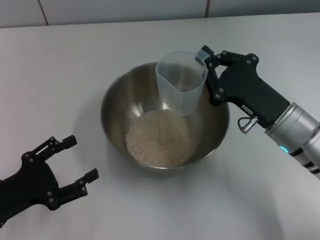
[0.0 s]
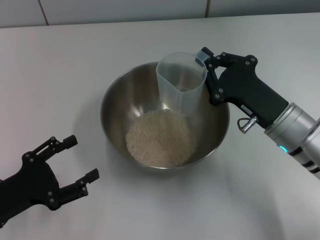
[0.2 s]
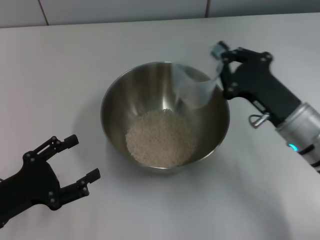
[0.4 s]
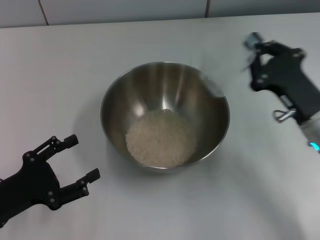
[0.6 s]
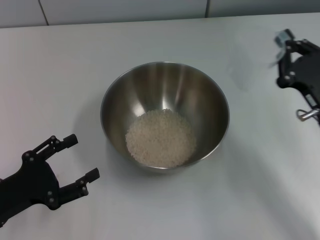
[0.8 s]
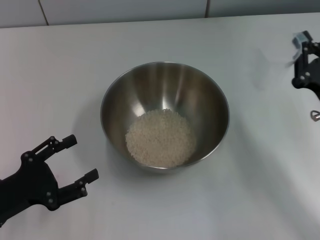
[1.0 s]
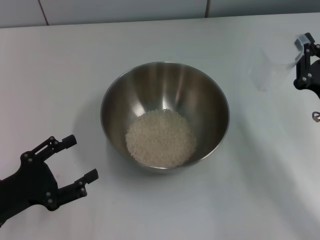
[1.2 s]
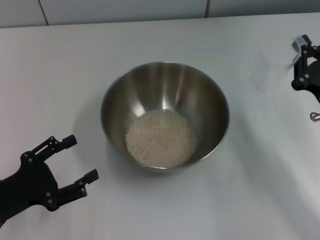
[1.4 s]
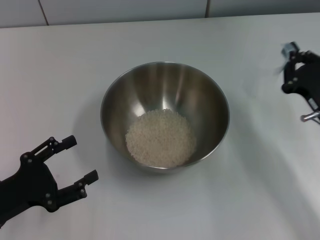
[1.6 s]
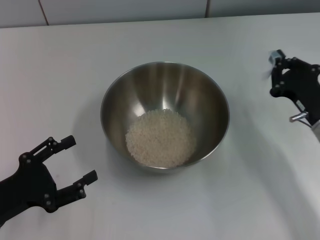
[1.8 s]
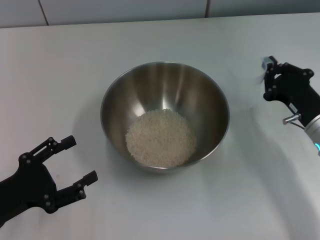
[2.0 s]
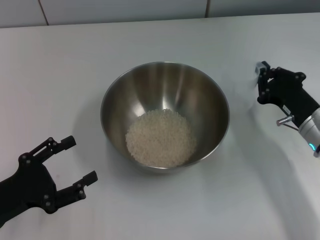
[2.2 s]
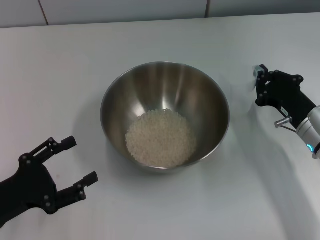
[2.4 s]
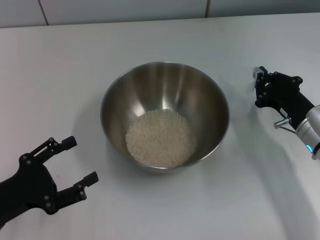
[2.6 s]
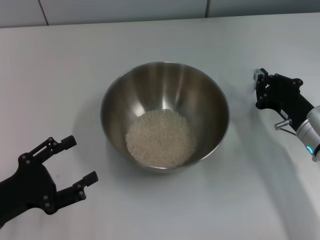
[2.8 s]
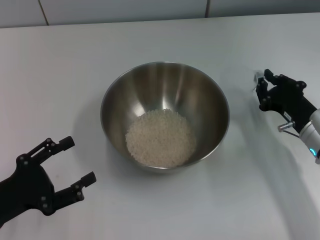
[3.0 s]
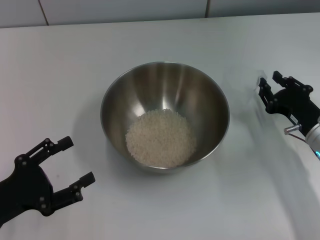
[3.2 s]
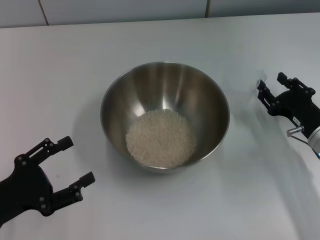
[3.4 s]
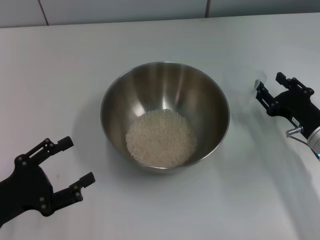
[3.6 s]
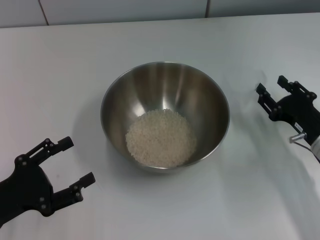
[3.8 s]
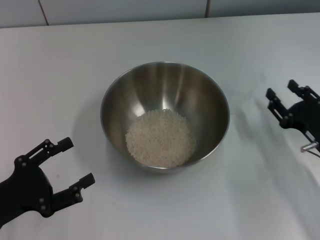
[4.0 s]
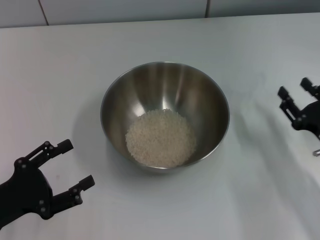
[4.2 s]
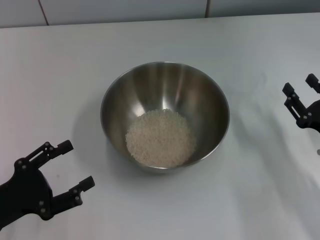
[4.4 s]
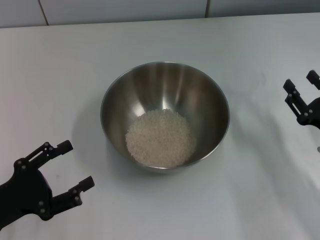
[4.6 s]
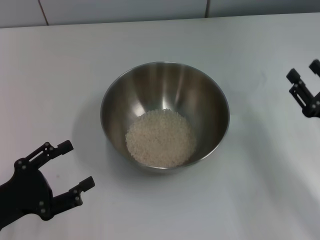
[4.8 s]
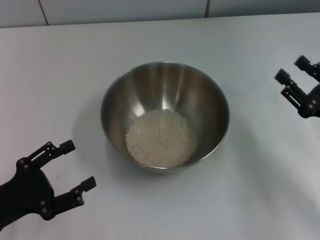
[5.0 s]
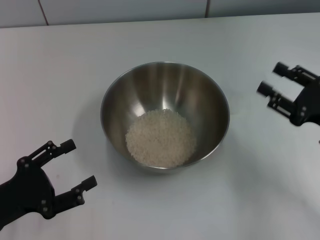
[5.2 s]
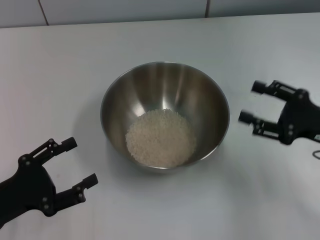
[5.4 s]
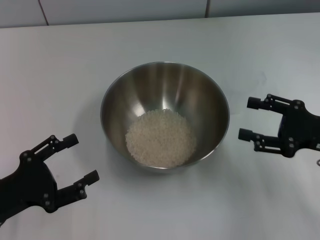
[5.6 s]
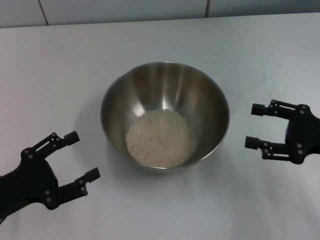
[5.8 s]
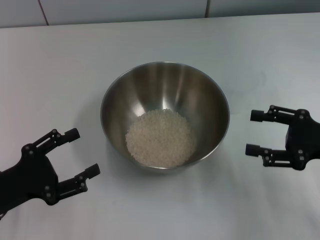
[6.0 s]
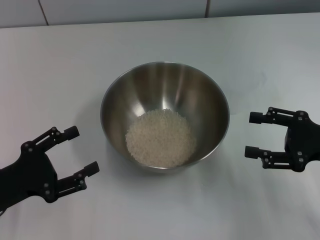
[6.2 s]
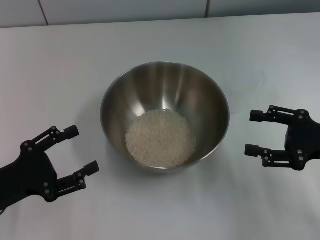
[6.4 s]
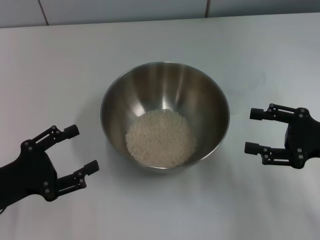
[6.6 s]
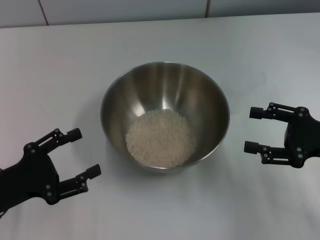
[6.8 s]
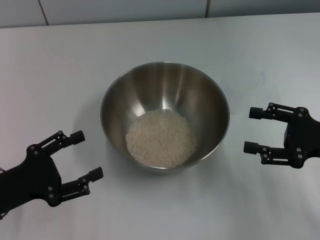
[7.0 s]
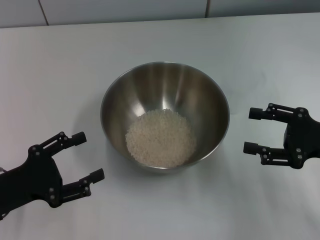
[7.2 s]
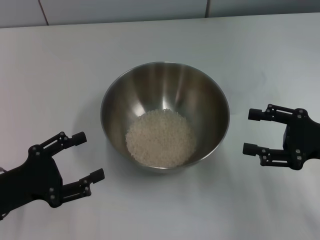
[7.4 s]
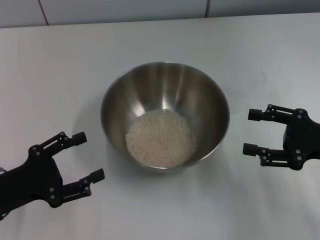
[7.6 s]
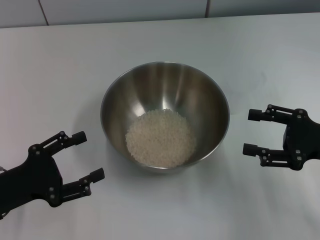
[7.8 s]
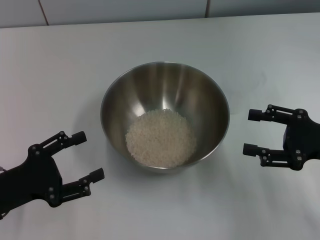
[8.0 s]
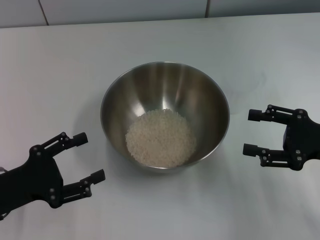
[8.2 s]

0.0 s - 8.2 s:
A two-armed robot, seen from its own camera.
Task of the whole recording: Place the bowl in the middle of the table with one hand and pour the rice from the grain cup into it with the other hand.
Step, 0.0 s - 3.8 s: Place the cup on the table with the right gripper.
0.0 s - 1.6 s: The right gripper moves to the right, approximately 10 cm.
1.6 s - 3.2 s: There are only small adjustments of the grippers.
3.2 s - 5.0 s: The right gripper changes place by approximately 5 cm, and opens up.
6.6 s - 8.2 s: Both grippers stay put.

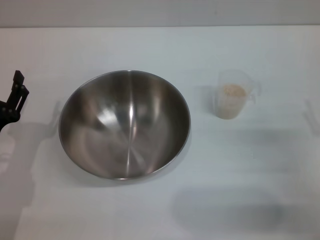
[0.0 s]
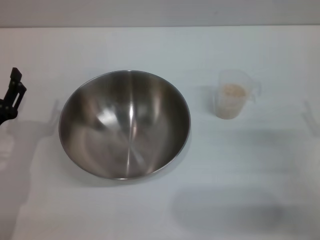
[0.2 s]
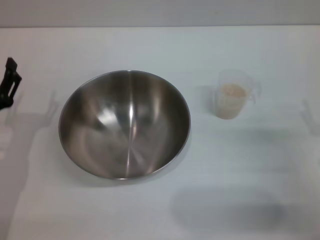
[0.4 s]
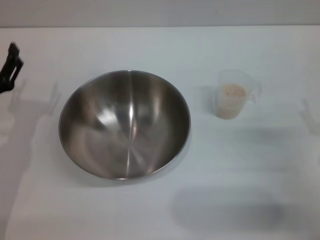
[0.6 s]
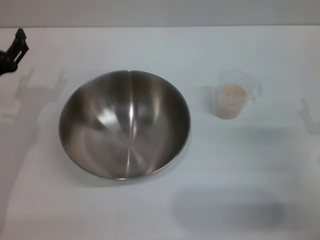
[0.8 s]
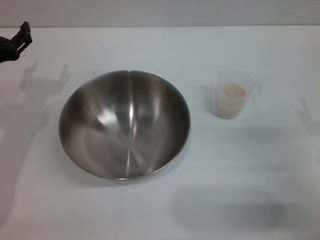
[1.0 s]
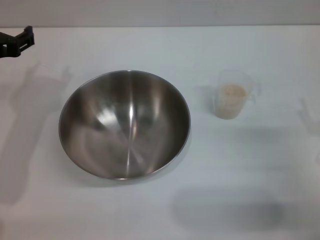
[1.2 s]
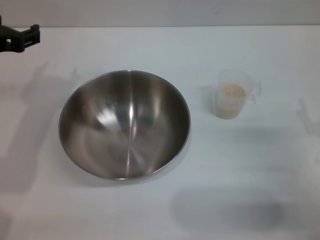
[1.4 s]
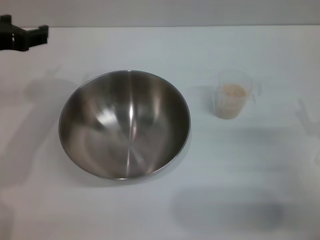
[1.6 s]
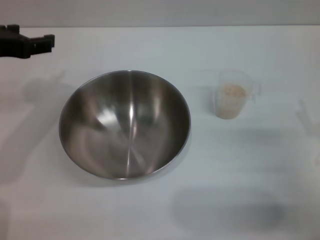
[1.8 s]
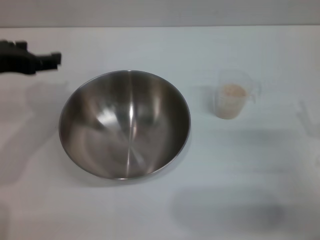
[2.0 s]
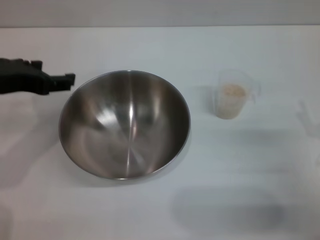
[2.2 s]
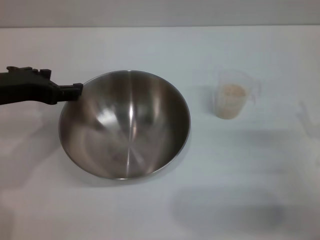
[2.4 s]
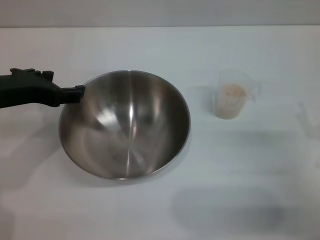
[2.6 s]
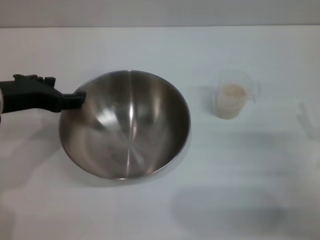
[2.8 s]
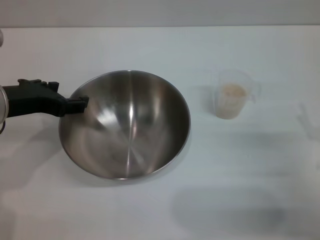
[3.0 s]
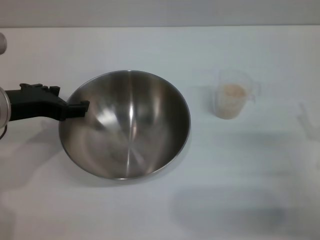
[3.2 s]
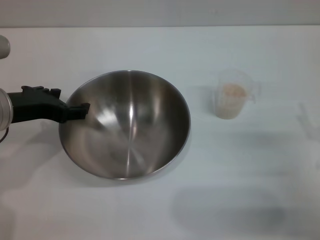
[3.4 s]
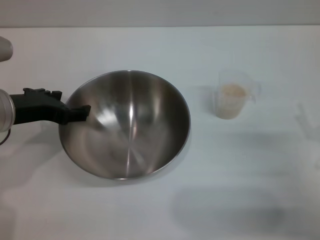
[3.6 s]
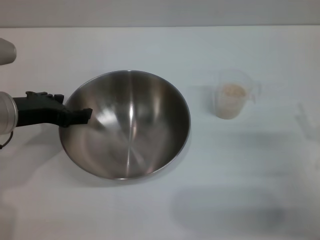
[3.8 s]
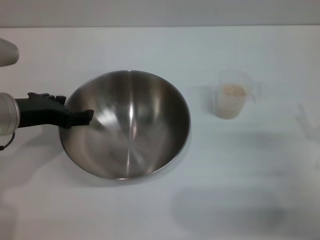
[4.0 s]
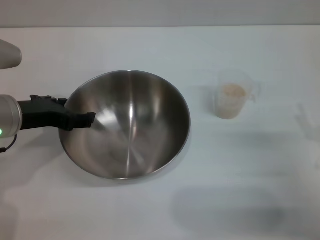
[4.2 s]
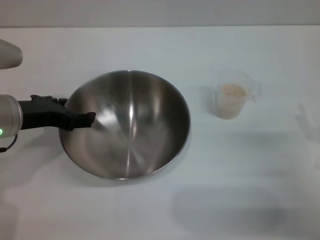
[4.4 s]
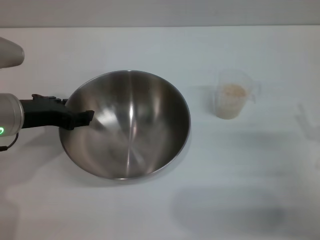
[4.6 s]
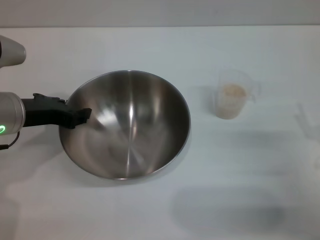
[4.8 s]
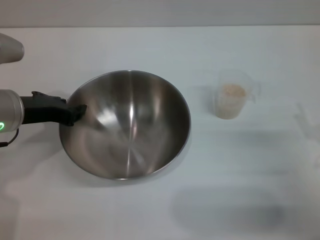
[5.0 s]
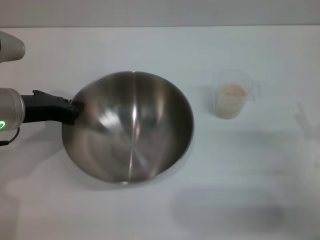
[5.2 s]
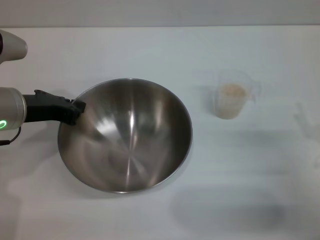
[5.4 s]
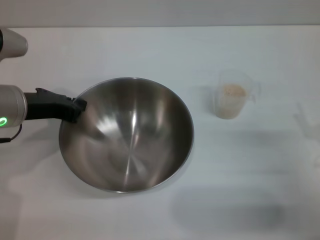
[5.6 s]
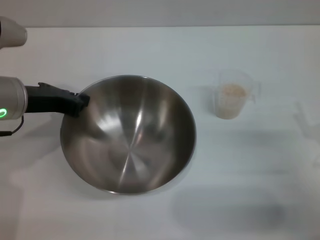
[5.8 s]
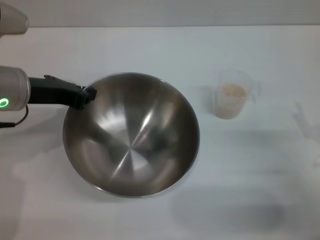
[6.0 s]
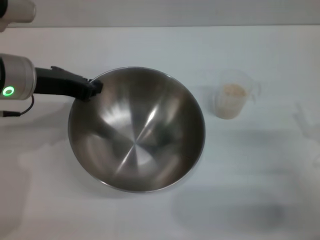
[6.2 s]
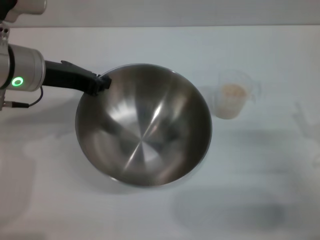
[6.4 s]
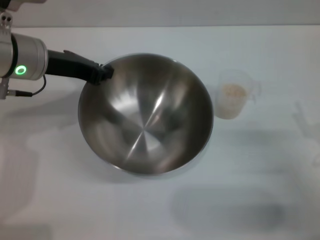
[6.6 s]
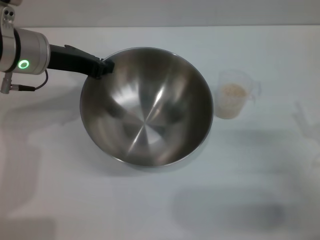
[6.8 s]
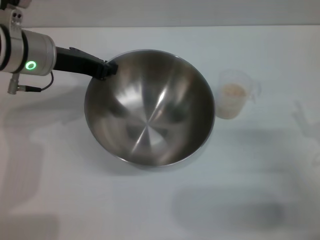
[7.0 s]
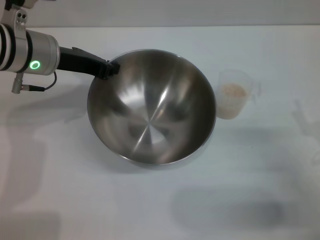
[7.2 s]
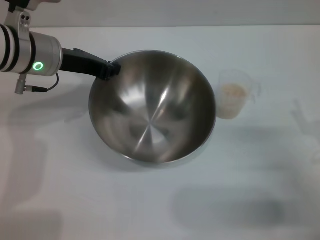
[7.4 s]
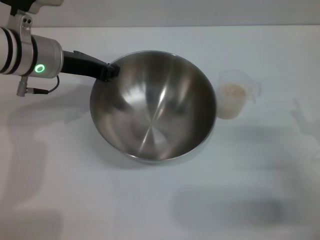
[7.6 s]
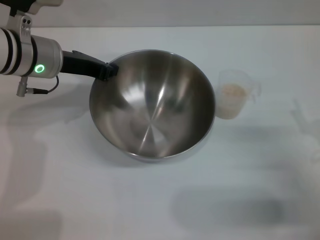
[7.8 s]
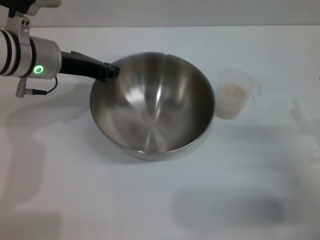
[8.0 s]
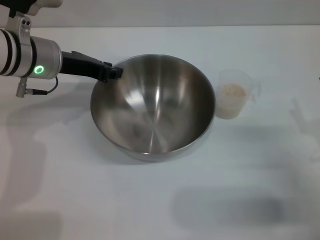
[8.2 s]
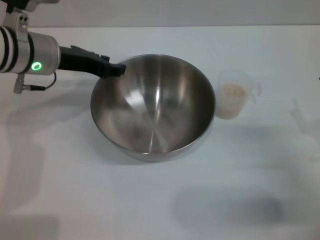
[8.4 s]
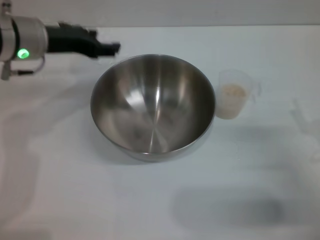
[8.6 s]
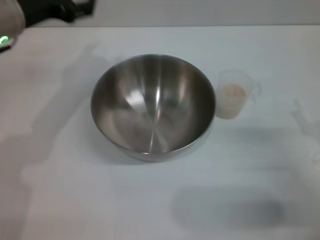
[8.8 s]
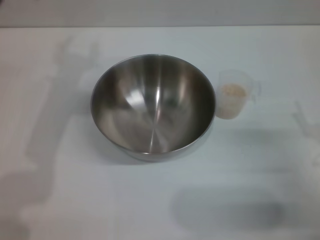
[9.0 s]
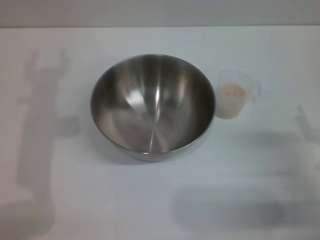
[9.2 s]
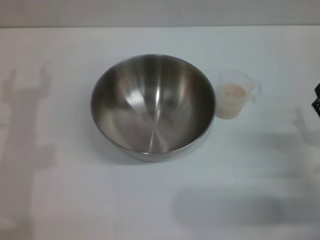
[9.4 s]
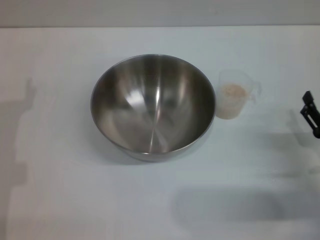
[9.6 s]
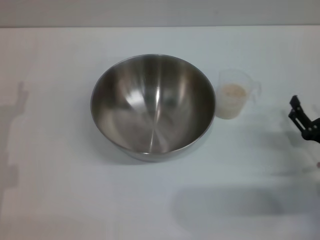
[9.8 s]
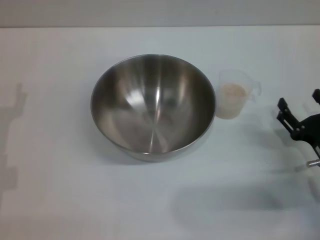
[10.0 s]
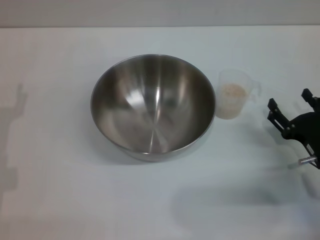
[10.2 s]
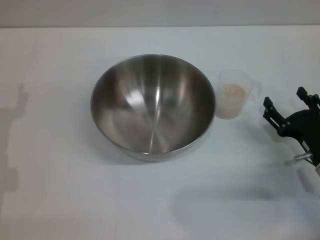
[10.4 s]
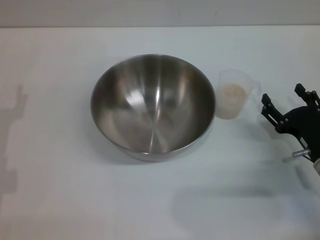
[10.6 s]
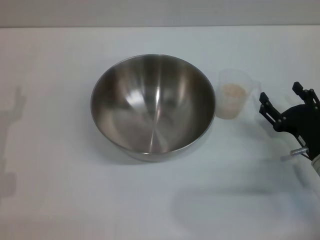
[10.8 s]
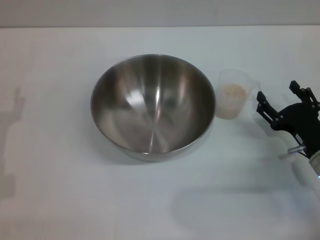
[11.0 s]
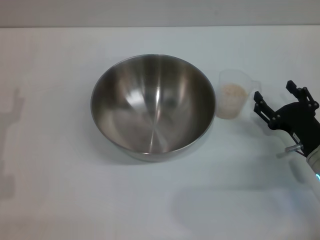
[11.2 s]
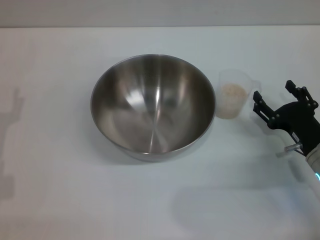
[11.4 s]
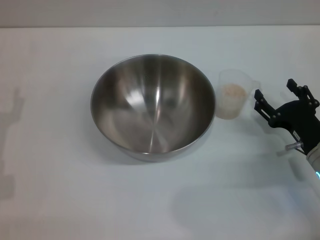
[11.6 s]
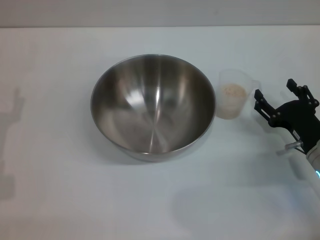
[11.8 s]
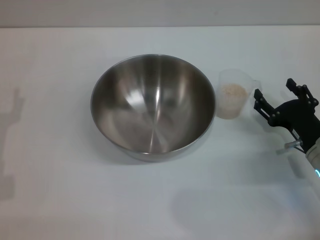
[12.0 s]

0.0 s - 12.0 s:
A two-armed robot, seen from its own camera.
Task of the whole recording: Place the bowl in the middle of the table with one hand and pour the rice from the grain cup into it with the other hand.
Step, 0.0 s - 6.8 s: Pick up the bowl with the left gripper.
Step, 7.2 s - 8.6 s: Place the bowl in the center of view with the left gripper.
0.0 s - 1.6 s: The left gripper moves upward and forward, approximately 20 cm.
1.6 s - 3.0 s: The left gripper changes place by approximately 5 cm.
3.0 s - 4.4 s: The grippers make only small movements.
4.4 s - 6.0 s: The left gripper closes its fingers.
6.0 s - 7.6 s: The left gripper moves forward, approximately 5 cm.
7.6 s - 9.0 s: The left gripper shifts about 10 cm backward and upward, and opens.
9.0 s - 10.4 s: The right gripper moves approximately 5 cm.
10.4 s - 12.0 s: There are only small adjustments of the grippers.

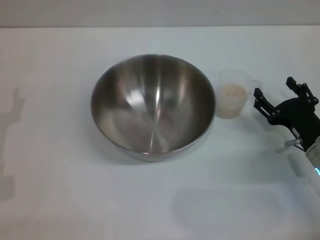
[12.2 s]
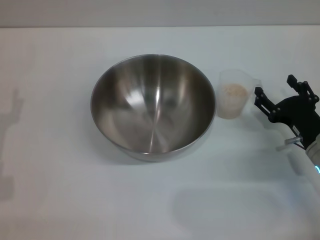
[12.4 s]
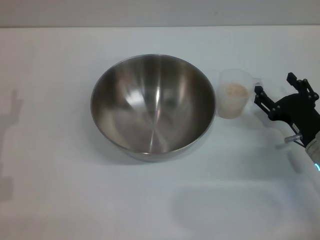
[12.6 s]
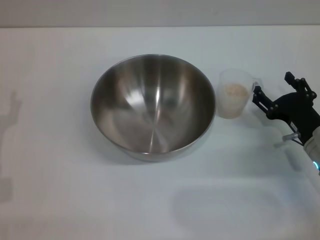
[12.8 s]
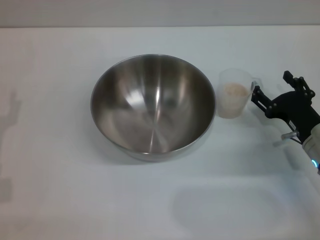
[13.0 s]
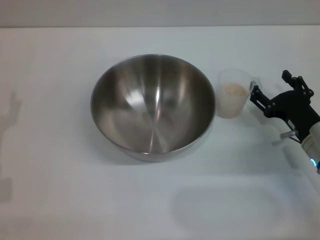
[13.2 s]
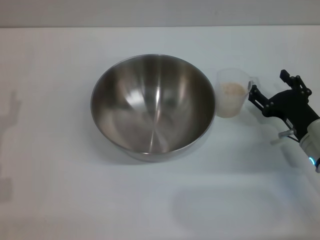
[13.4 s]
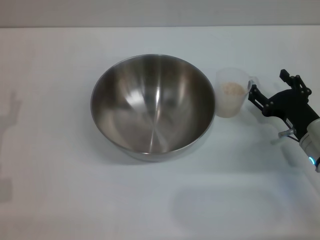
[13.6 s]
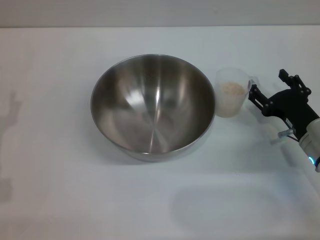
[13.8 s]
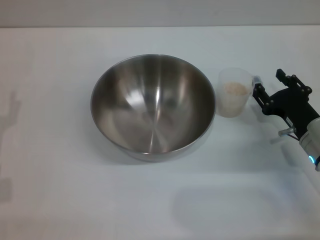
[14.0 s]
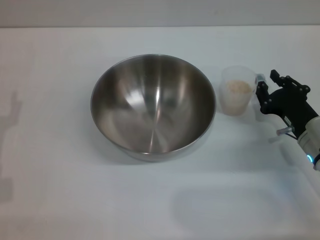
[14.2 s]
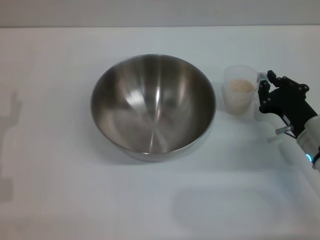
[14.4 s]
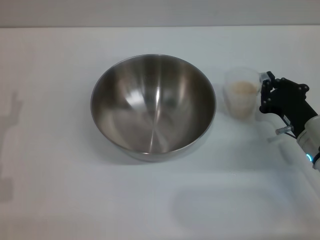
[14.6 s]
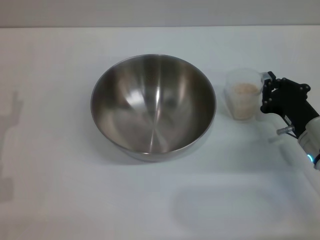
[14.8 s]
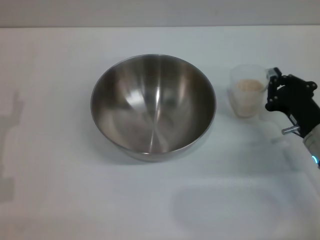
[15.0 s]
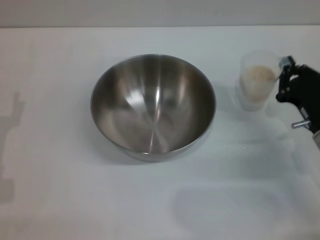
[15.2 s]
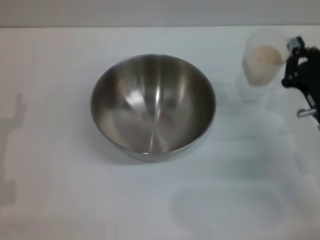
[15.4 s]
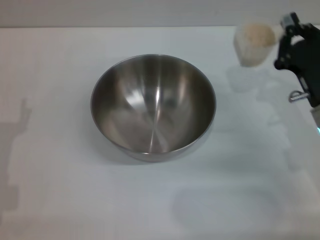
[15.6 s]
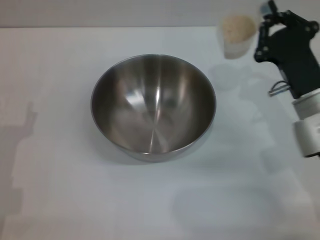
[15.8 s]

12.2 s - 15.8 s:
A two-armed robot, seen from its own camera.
Task of the whole recording: Place the bowl in the middle of the table with one hand and pour the rice from the grain cup into it with the other hand.
Step, 12.2 s - 15.2 s: Pick up the cup with rice in it with the right gripper.
12.2 s - 14.0 s: There are only small adjustments of the grippers.
14.0 s - 15.8 s: The right gripper is displaced upward by roughly 5 cm, and closes its fingers.
